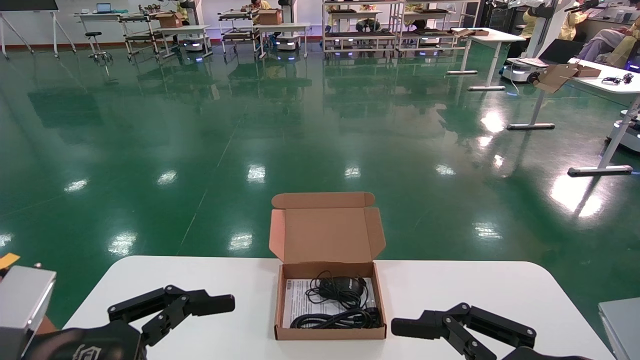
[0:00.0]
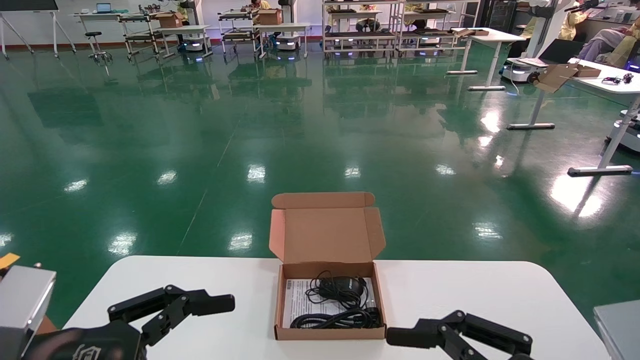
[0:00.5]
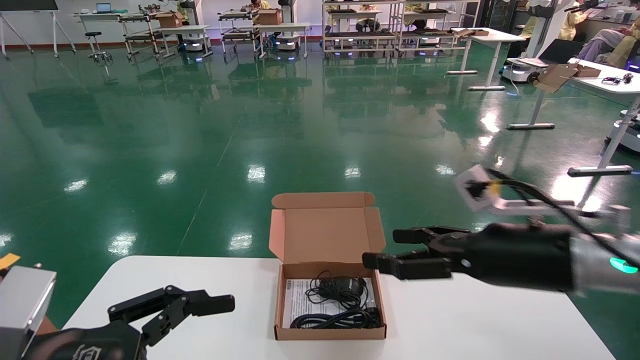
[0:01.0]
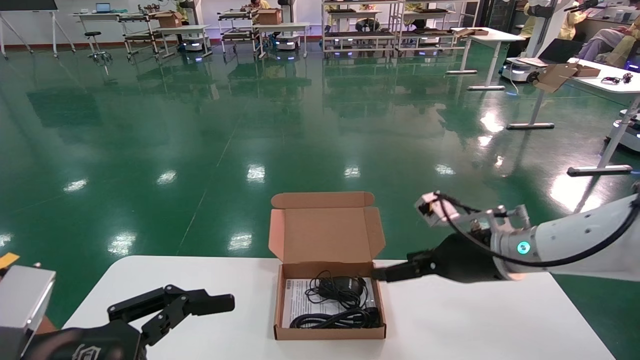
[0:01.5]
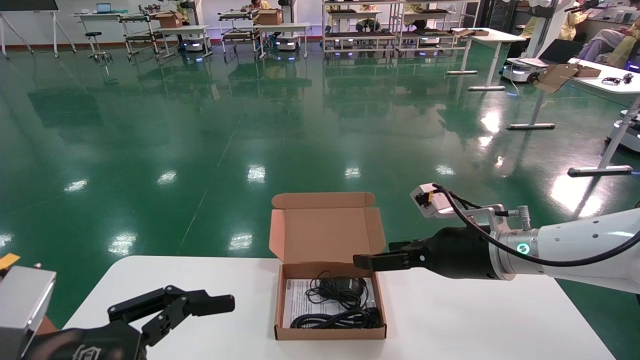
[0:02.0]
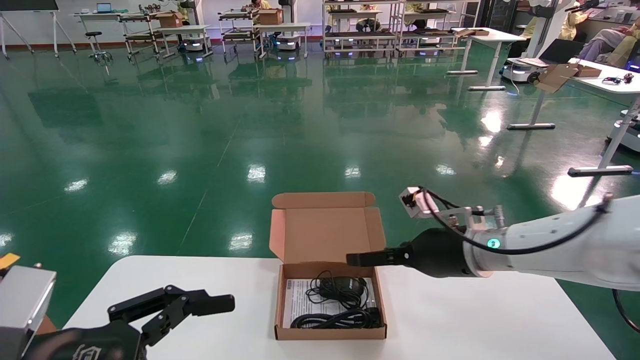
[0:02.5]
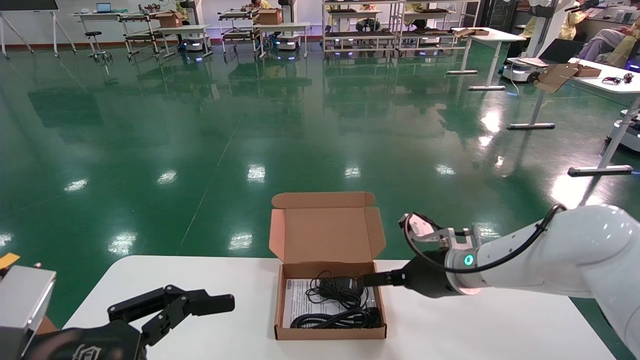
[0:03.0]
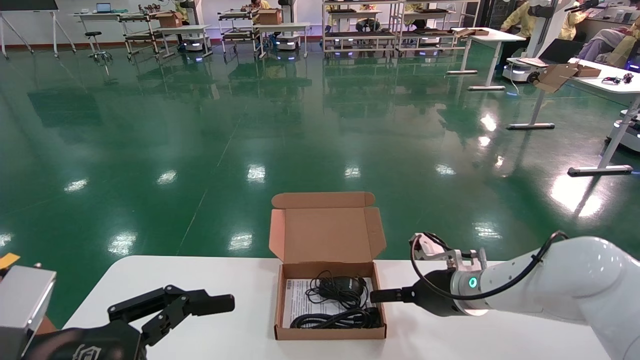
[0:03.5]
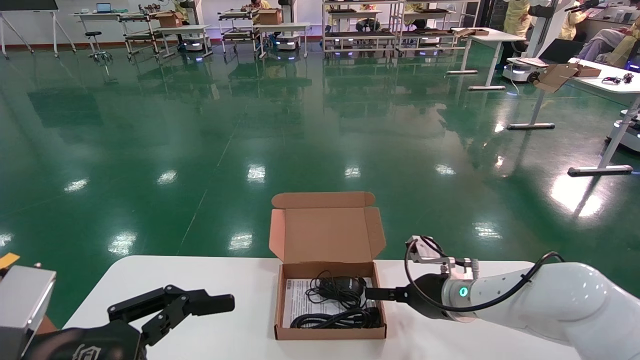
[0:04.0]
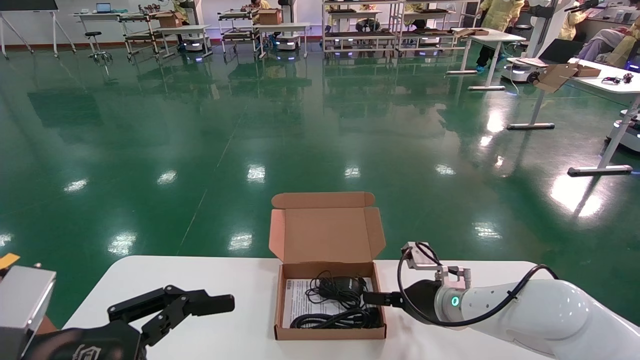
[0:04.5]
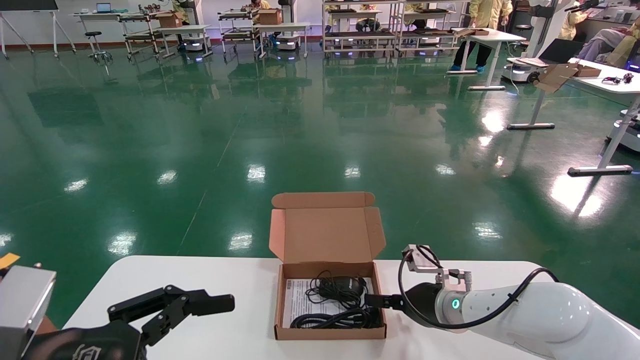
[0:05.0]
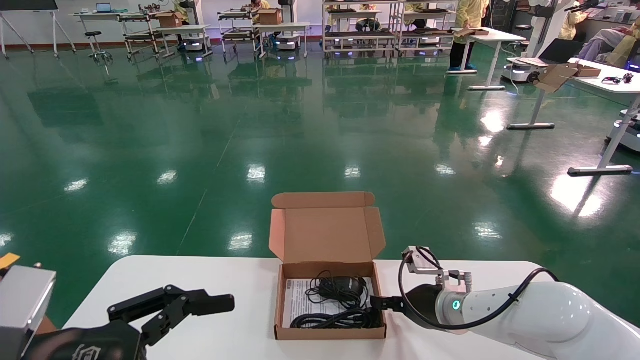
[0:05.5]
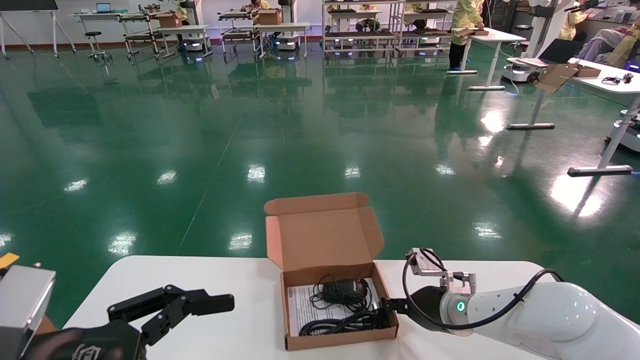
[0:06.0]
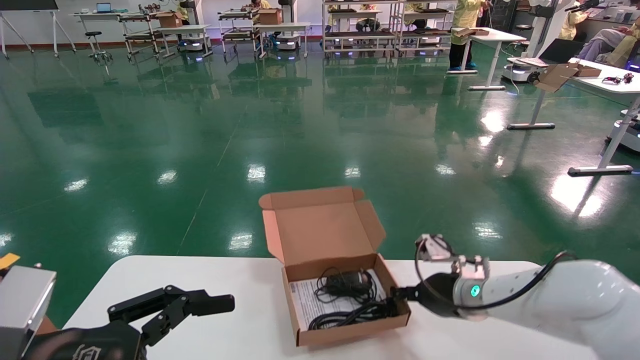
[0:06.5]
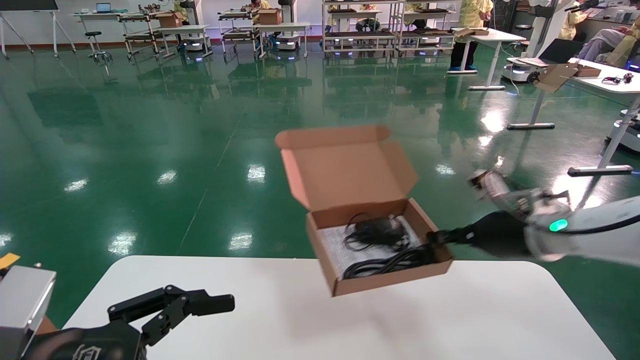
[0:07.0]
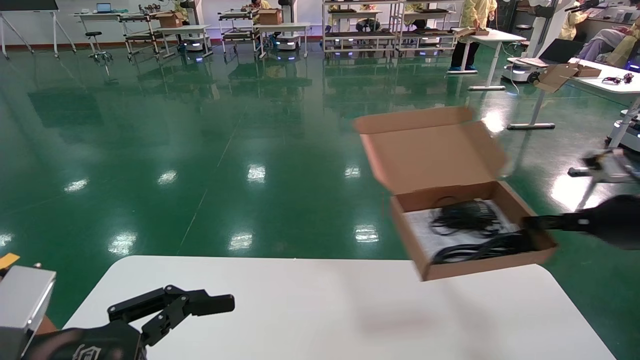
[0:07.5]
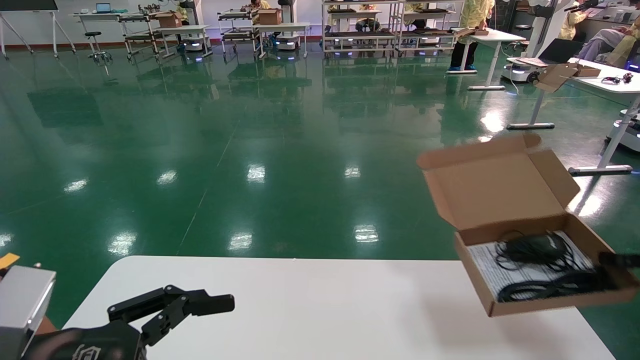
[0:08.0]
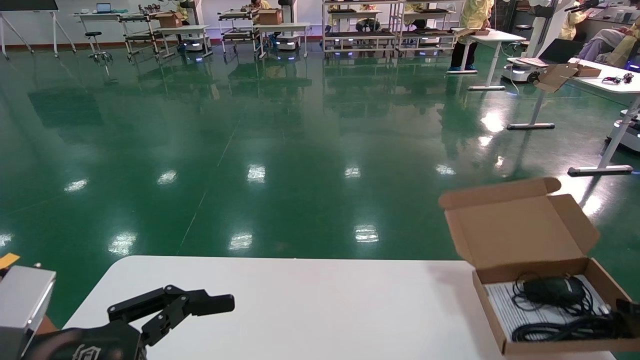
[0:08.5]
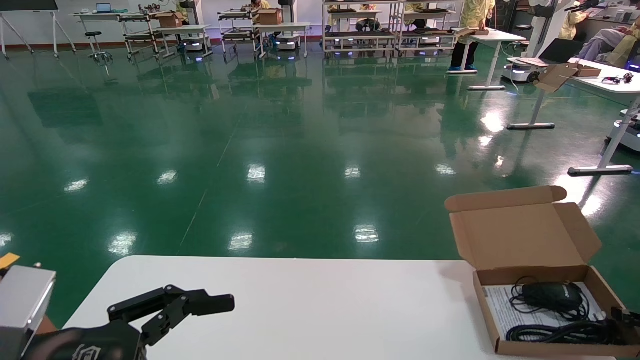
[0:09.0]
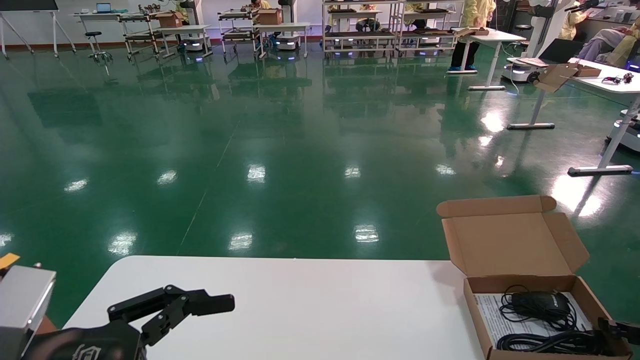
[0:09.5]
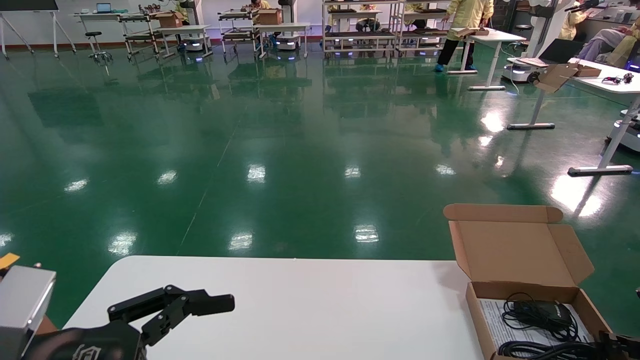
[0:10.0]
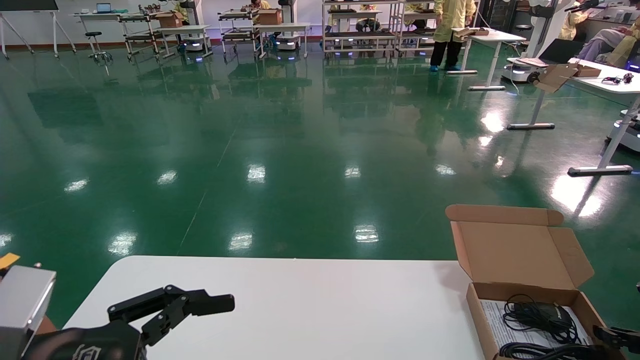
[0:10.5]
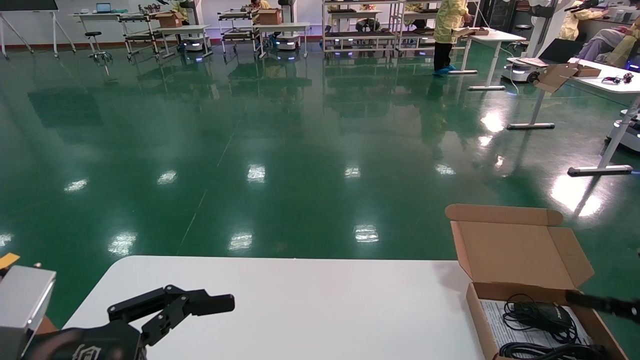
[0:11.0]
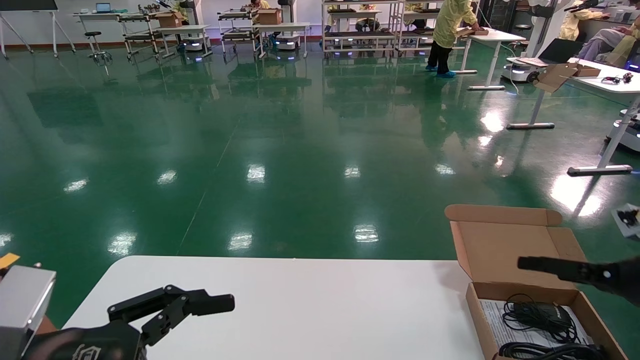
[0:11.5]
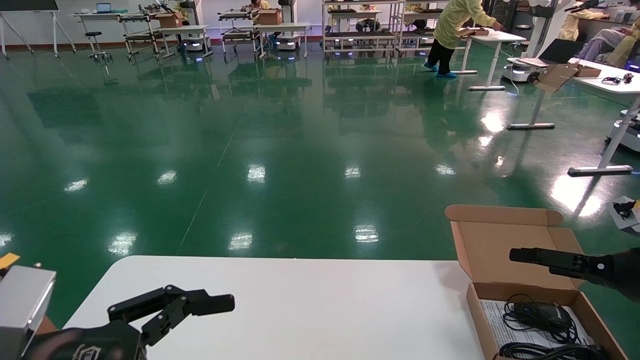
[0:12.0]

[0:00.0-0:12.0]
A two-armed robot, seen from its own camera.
Task of the whole recording: move the position of the storage box with accessories on the table.
Step, 0:01.0 to 0:06.0: Grab and pick up the open mouse box from the accessory packaging area.
Step, 0:06.5 to 0:10.5: Place the open mouse box onto the operation table.
0:00.0 to 0:02.0: The right gripper moves forward, roughly 25 cm.
0:02.0 to 0:04.0: The right gripper moves downward and forward, approximately 10 cm.
0:04.0 to 0:06.0: The right gripper closes up.
0:06.0 to 0:08.0: The right gripper moves to the right, some 30 cm.
0:08.0 to 0:10.0: The right gripper goes roughly 15 cm downward.
0:10.0 to 0:12.0: The right gripper is displaced upward and to the left by some 15 cm, and opens.

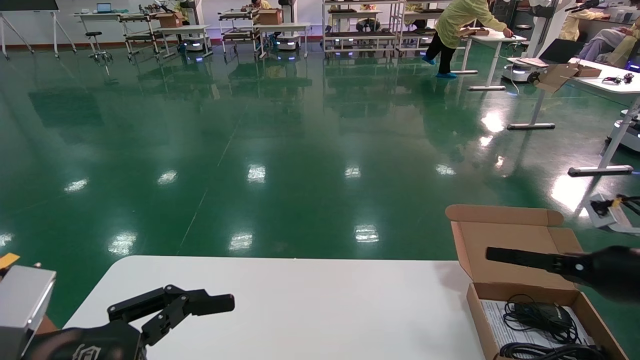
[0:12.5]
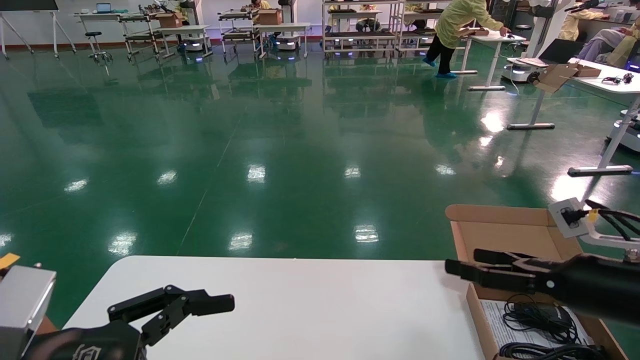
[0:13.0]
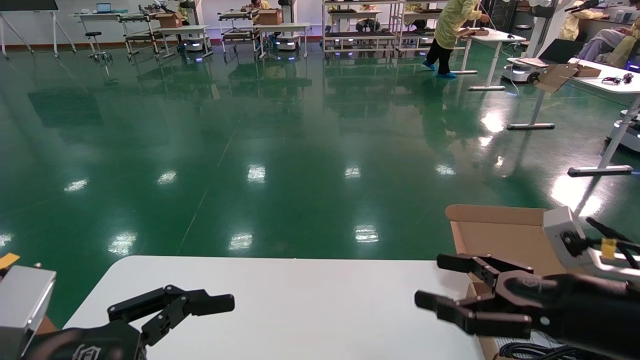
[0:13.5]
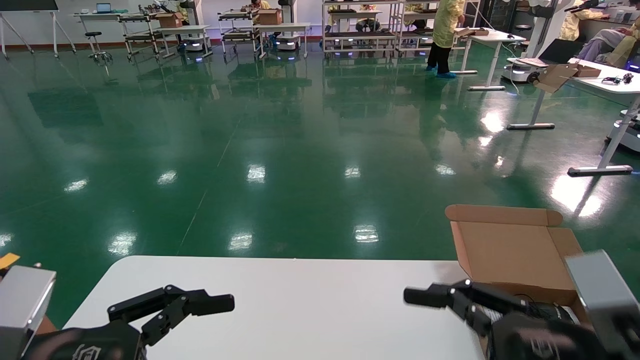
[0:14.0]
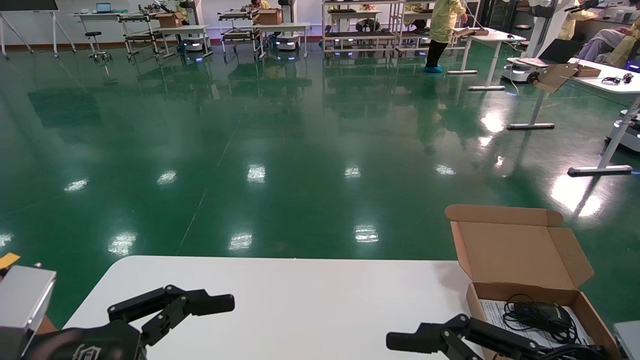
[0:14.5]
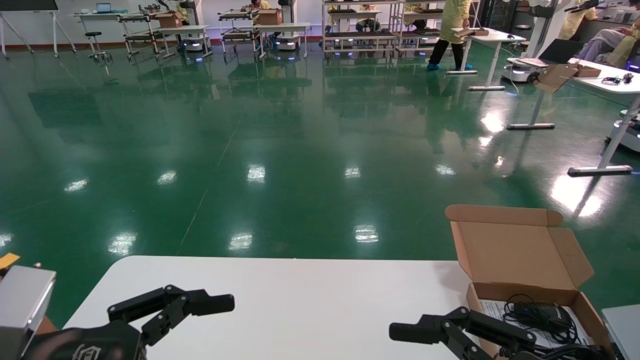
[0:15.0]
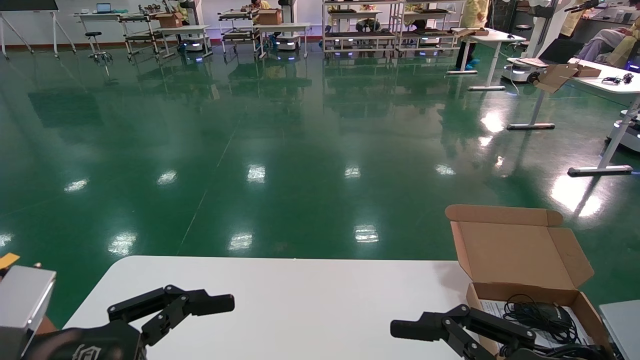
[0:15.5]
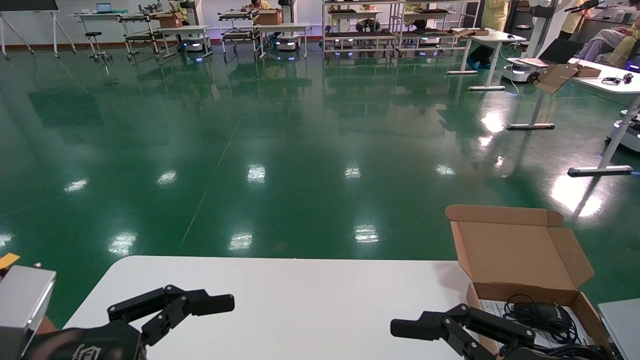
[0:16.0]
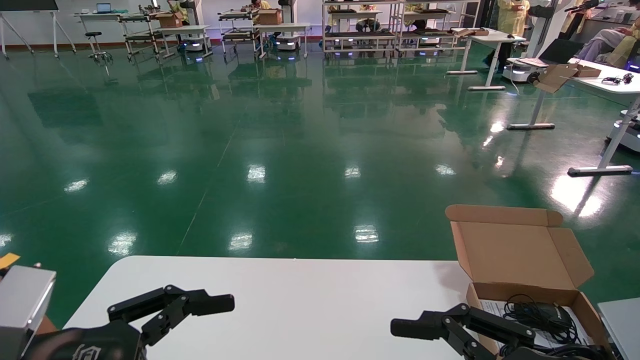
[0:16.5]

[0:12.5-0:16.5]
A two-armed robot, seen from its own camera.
Task of the whole recording: move the position of the storage box with accessories on the table.
0:12.5 to 0:14.5: The right gripper is displaced backward and to the left by about 25 cm.
0:14.5 to 0:16.5: Both grippers stay put.

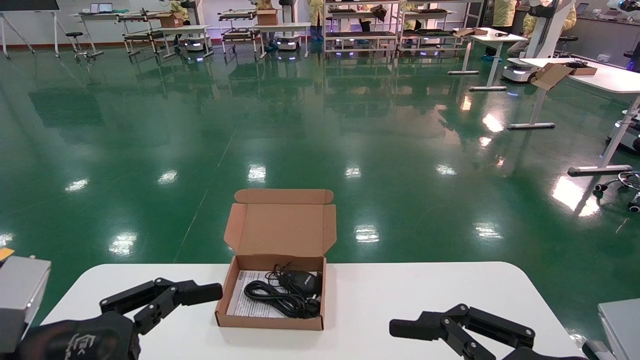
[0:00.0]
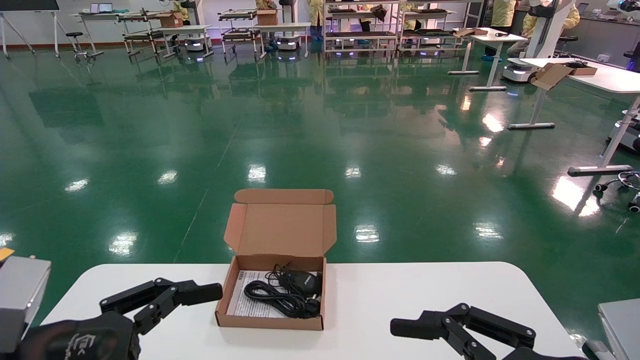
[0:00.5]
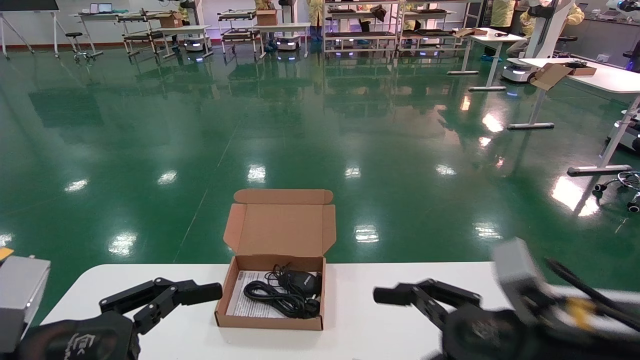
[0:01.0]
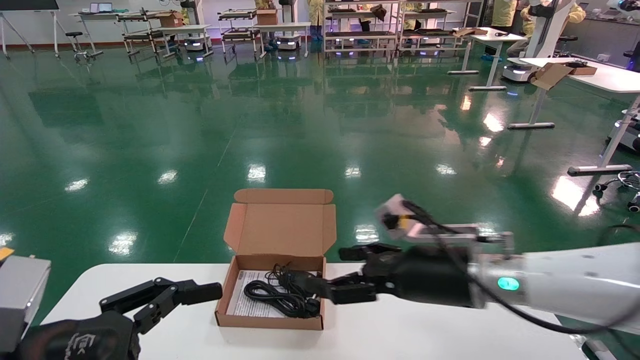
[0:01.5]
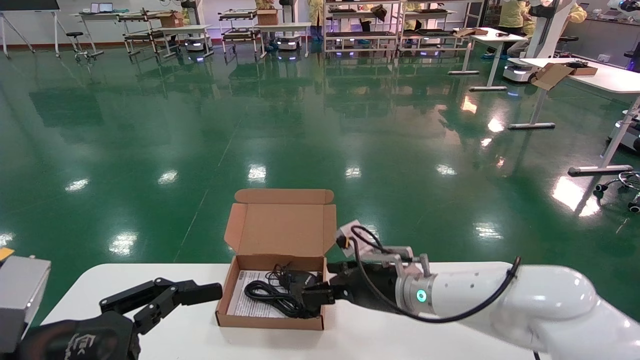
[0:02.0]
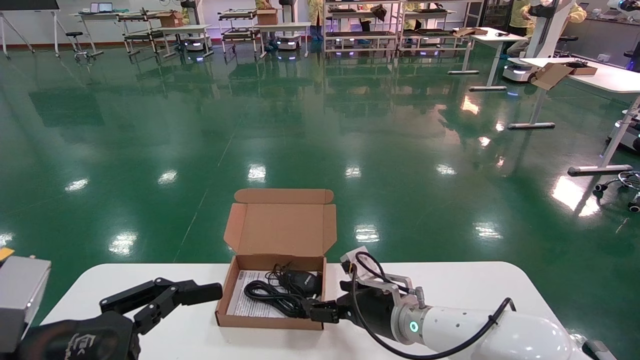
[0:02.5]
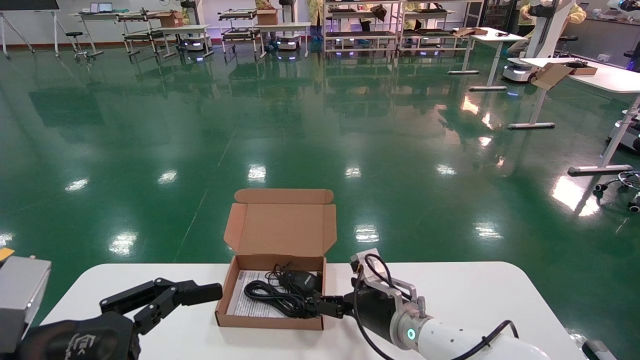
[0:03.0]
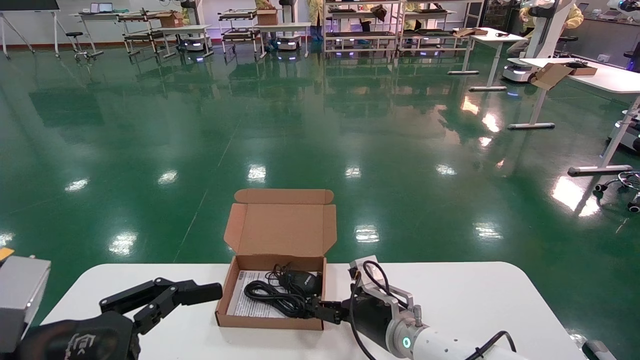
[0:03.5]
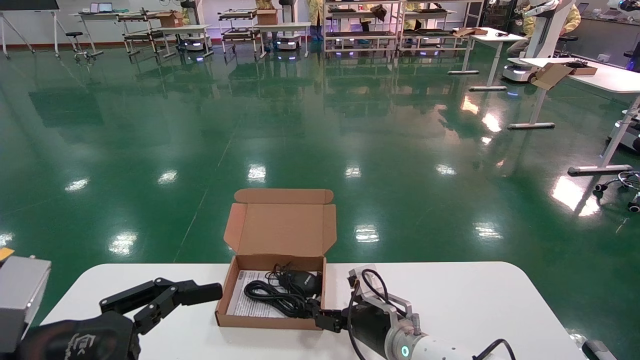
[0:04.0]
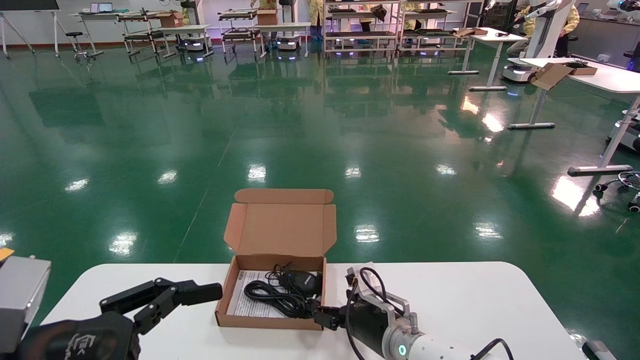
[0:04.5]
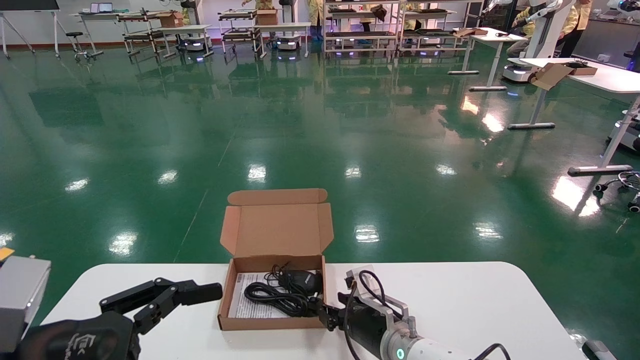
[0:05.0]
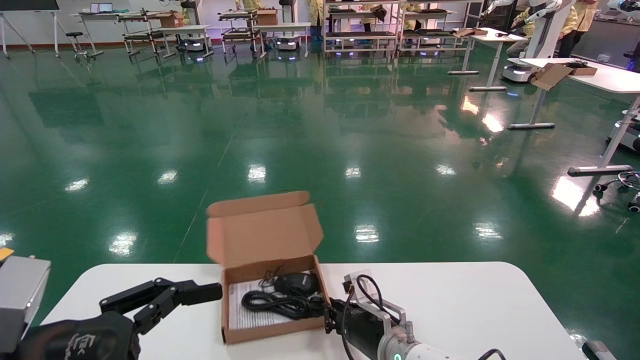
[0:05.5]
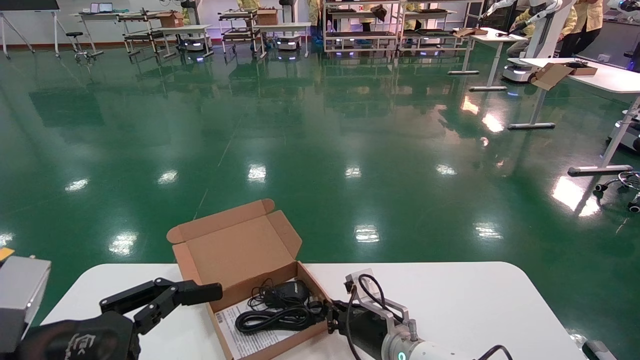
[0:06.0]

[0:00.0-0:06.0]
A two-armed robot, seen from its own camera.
Task of the whole recording: move the position of the storage box with accessories on the table.
Step, 0:01.5 to 0:05.5: Grab and pick up the open mouse box from the accessory packaging area.
0:00.0 to 0:02.0: The right gripper travels forward and to the left by some 30 cm.
0:02.0 to 0:04.0: The right gripper moves downward, roughly 10 cm.
0:04.0 to 0:06.0: The right gripper closes.
